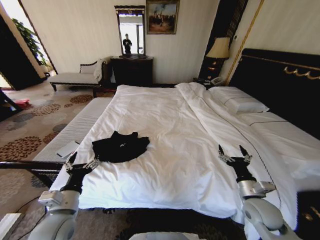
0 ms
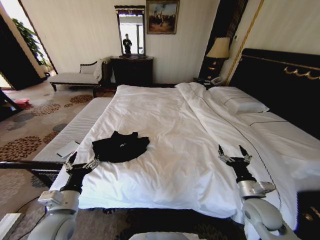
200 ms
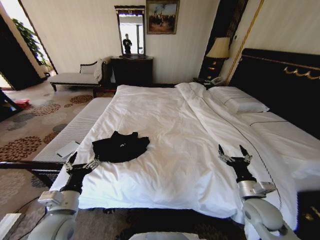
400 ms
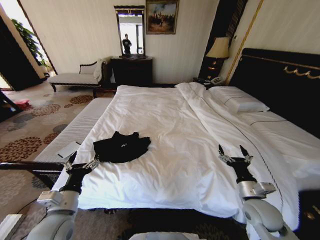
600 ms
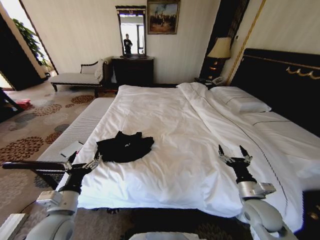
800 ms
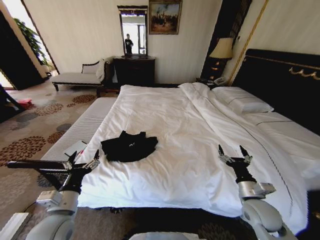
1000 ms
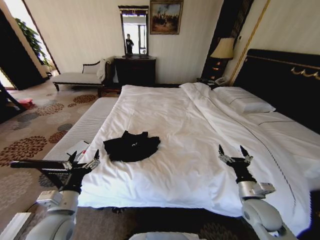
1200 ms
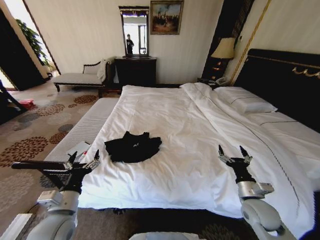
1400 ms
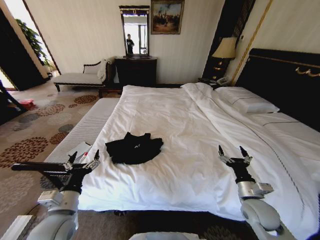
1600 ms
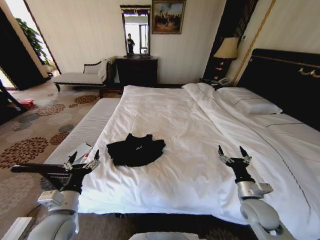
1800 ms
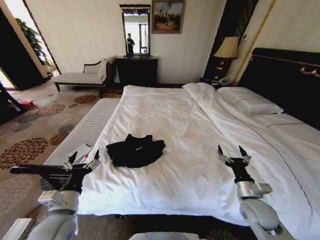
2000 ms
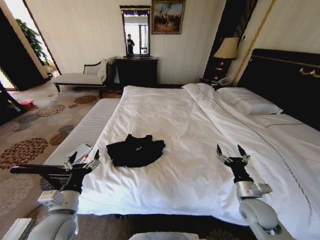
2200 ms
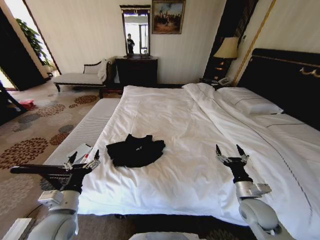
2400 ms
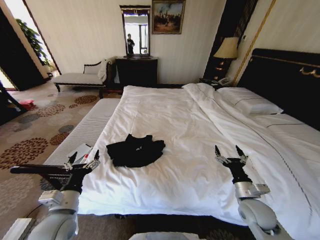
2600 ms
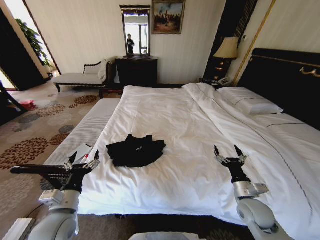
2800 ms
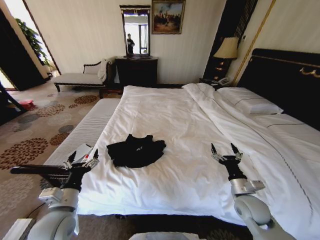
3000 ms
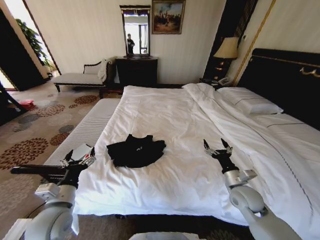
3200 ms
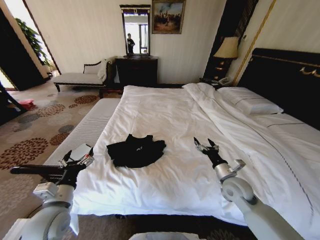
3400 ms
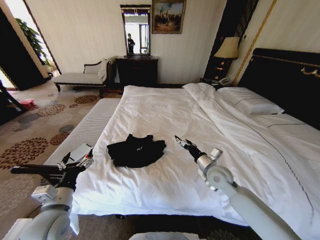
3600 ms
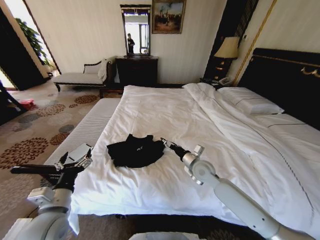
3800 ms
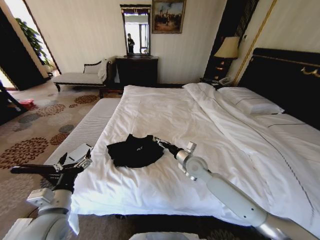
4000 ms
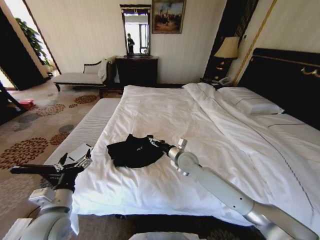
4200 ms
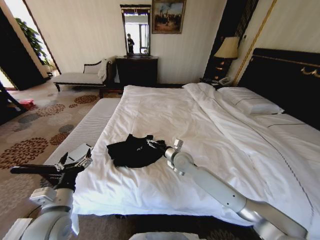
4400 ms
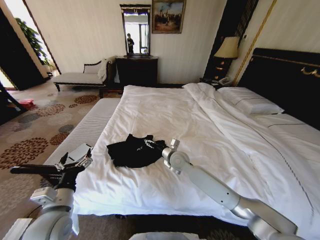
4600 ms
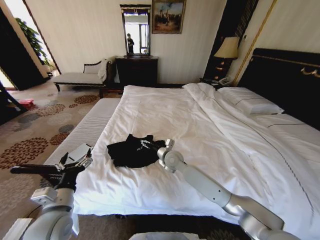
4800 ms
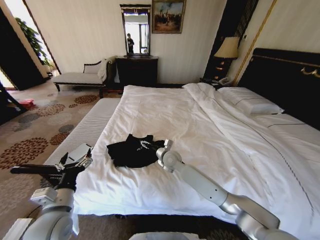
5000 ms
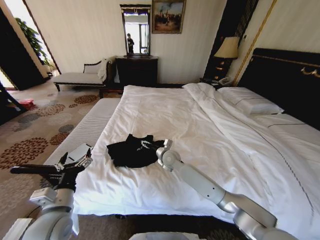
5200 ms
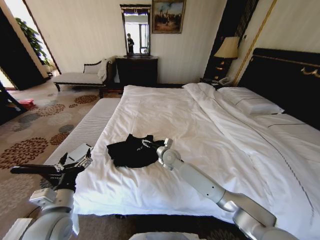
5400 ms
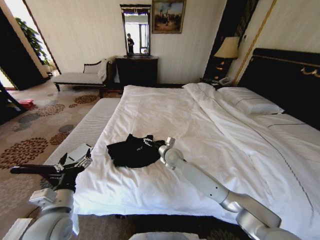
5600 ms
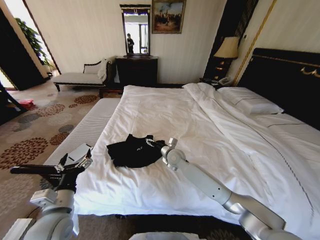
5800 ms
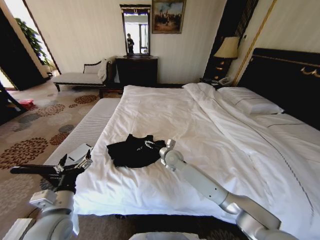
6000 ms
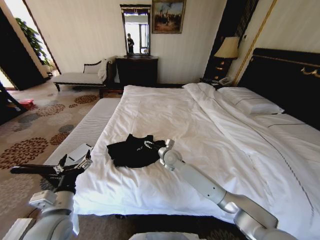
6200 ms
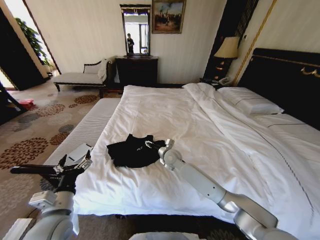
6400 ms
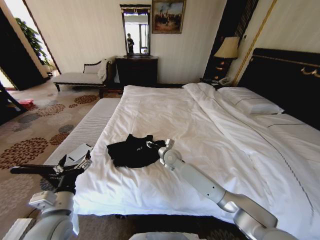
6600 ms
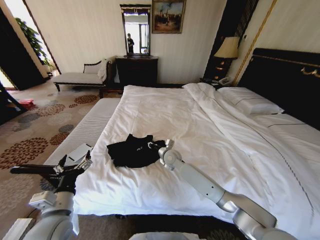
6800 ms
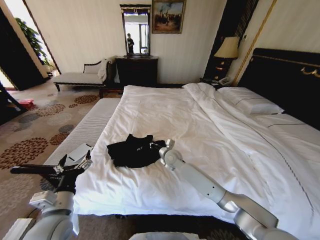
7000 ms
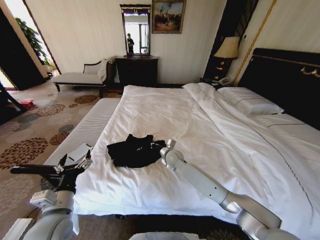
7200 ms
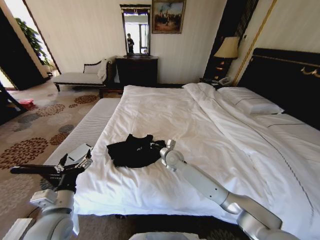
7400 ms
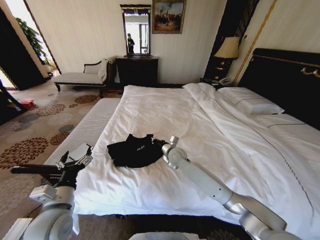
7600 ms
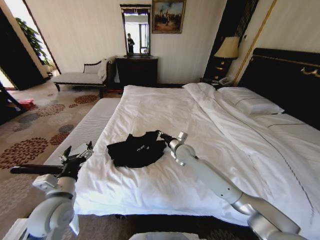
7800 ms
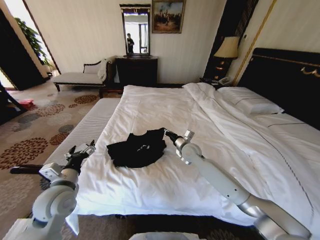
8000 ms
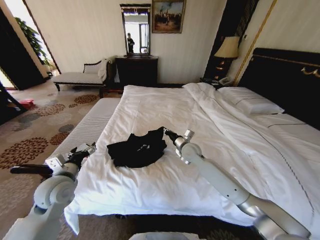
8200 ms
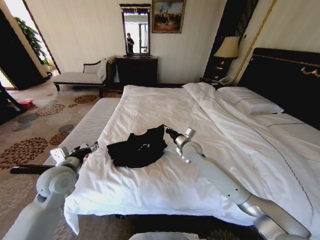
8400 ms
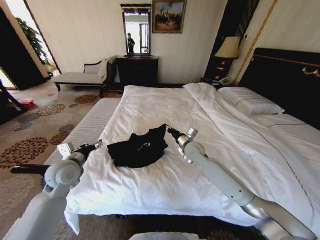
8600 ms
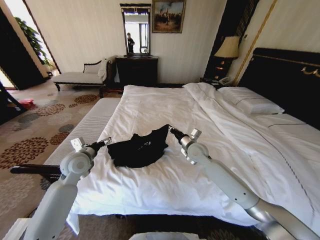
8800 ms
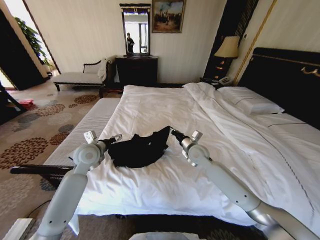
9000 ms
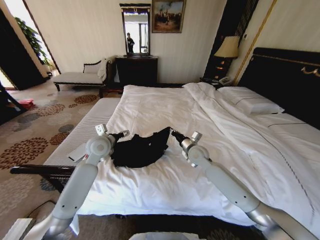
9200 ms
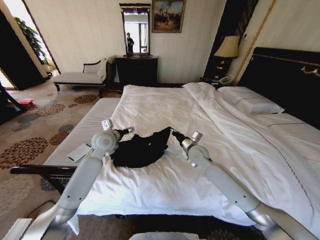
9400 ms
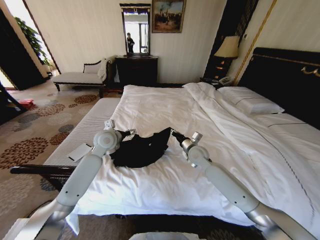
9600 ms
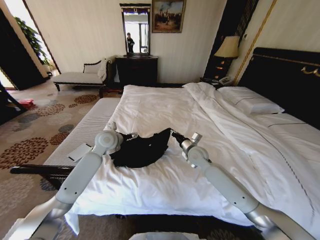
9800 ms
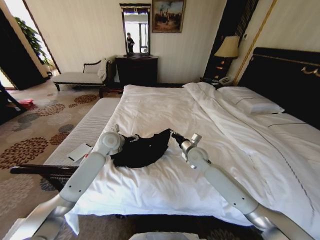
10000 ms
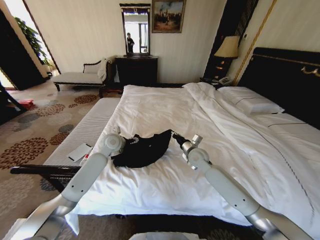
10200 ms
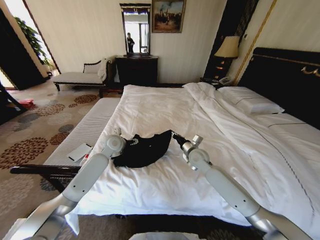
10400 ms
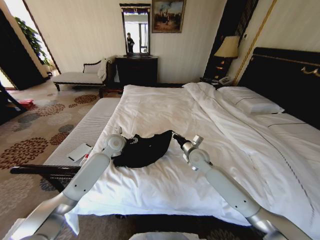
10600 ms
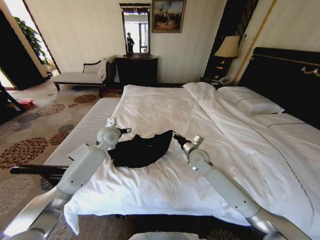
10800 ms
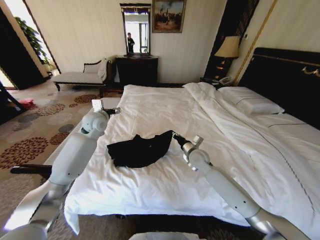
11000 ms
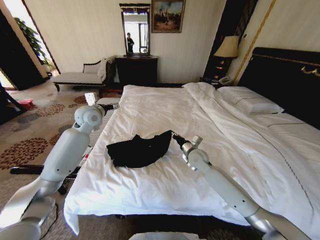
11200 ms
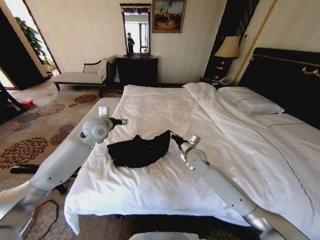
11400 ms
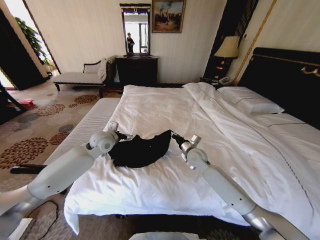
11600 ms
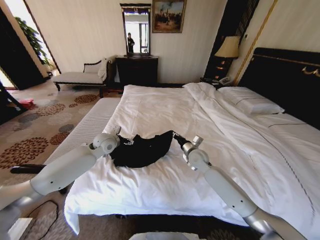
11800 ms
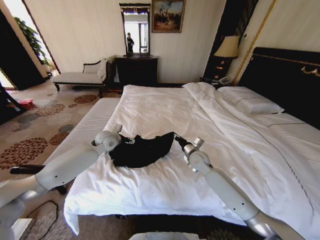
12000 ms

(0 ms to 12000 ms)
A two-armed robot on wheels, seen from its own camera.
Task of the whole recording: Fold the clothes on the bed.
1600 ms - 3000 ms: The grippers make only small movements.
3000 ms - 4400 ms: The right gripper goes about 30 cm to the left and forward.
4400 ms - 6000 ms: The right gripper shifts by roughly 5 cm.
6000 ms - 7600 ms: The right gripper closes up.
7600 ms - 9000 ms: The left gripper heads forward, covering about 20 cm, while the right gripper is displaced to the right by some 10 cm.
9000 ms - 10400 ms: The left gripper goes roughly 10 cm forward and to the right.
10400 ms - 12000 ms: The left gripper reaches about 15 cm upward, then returns.

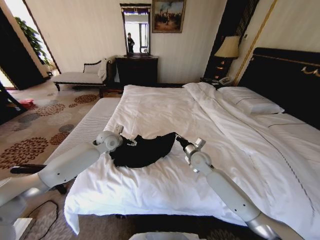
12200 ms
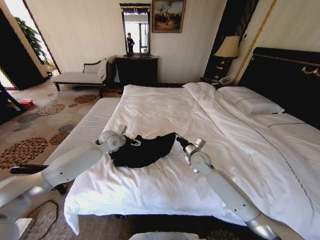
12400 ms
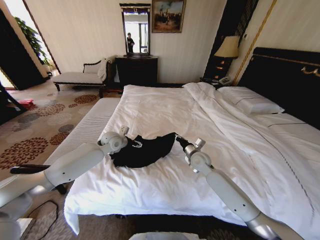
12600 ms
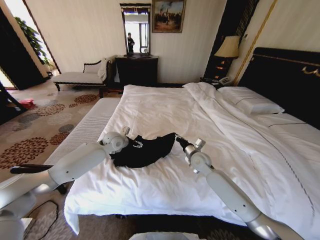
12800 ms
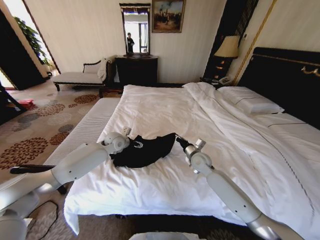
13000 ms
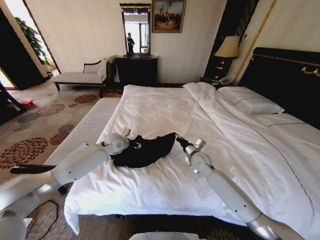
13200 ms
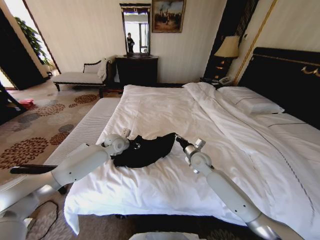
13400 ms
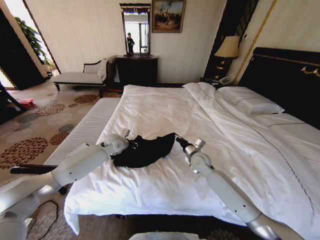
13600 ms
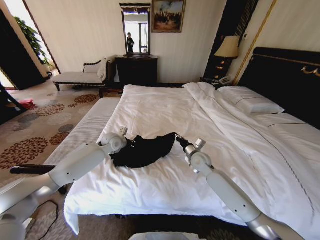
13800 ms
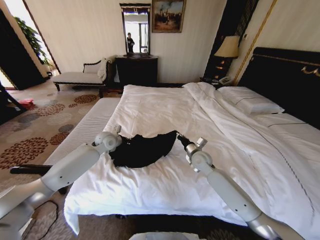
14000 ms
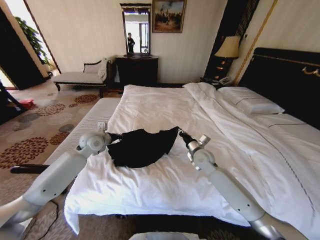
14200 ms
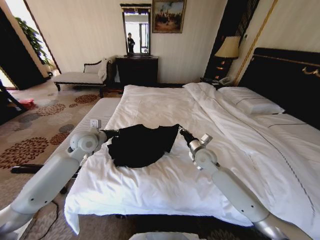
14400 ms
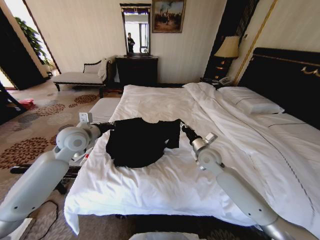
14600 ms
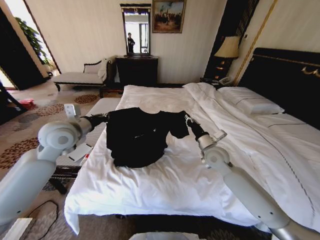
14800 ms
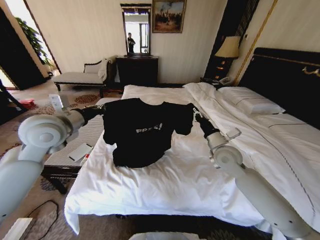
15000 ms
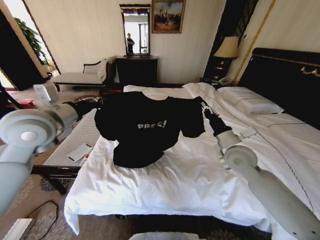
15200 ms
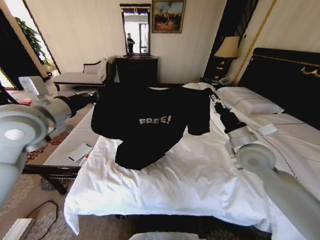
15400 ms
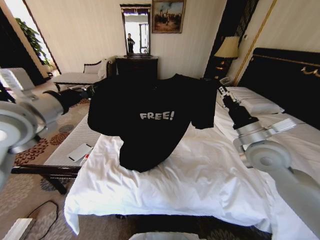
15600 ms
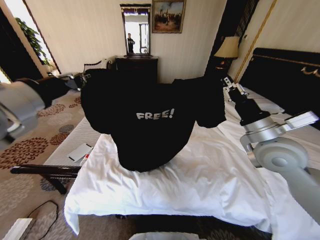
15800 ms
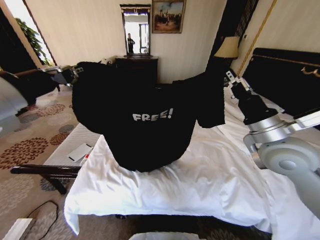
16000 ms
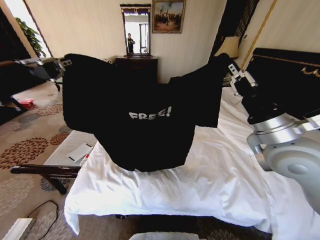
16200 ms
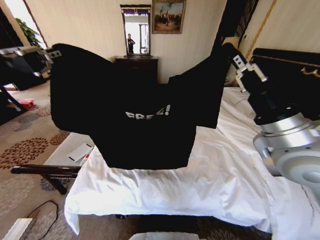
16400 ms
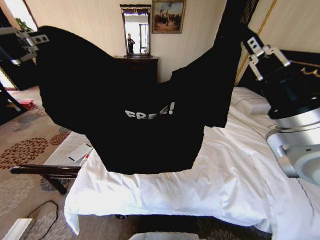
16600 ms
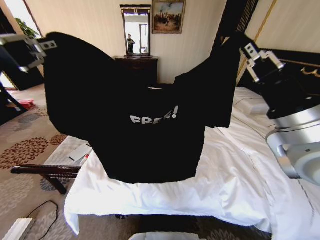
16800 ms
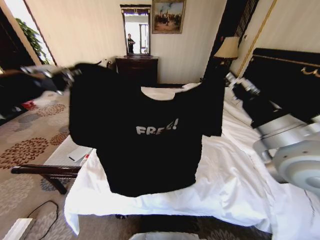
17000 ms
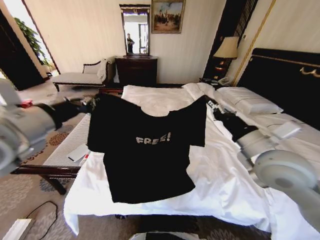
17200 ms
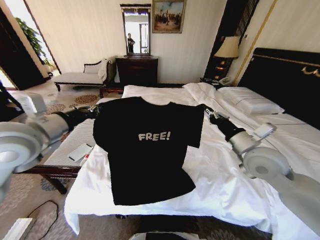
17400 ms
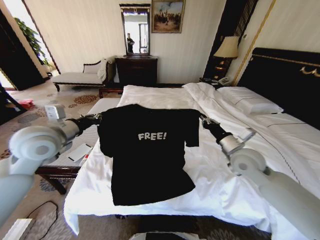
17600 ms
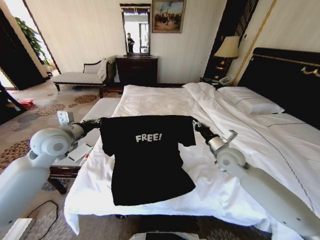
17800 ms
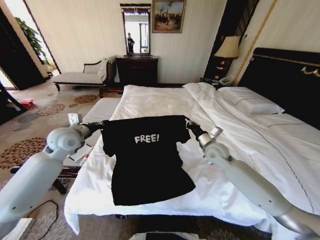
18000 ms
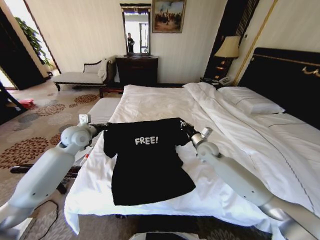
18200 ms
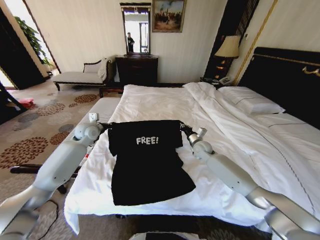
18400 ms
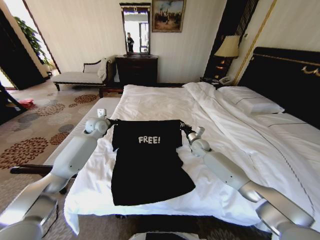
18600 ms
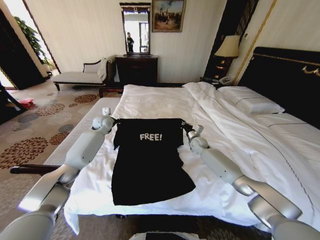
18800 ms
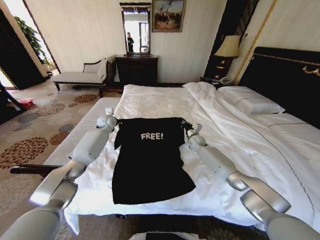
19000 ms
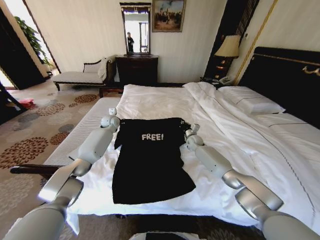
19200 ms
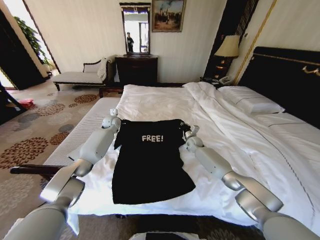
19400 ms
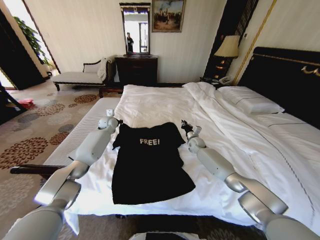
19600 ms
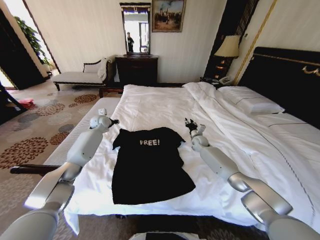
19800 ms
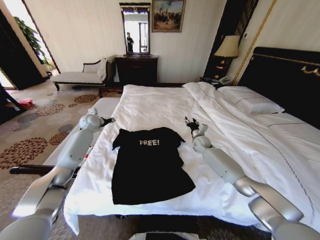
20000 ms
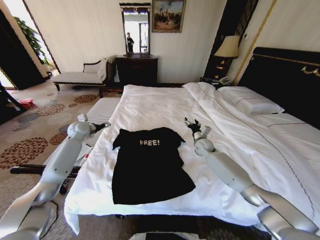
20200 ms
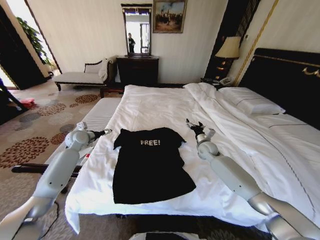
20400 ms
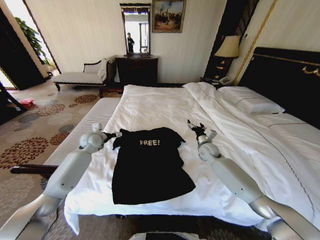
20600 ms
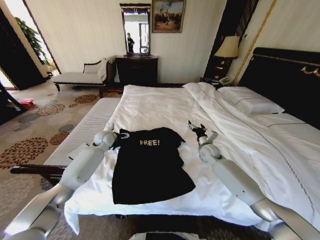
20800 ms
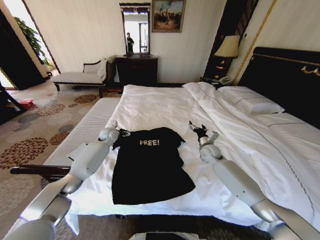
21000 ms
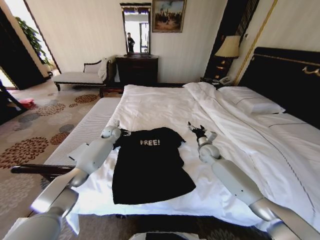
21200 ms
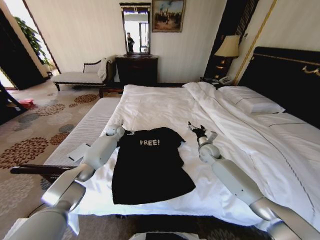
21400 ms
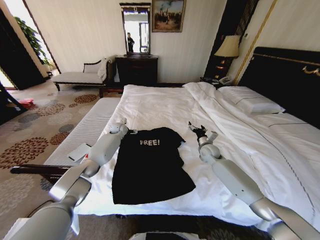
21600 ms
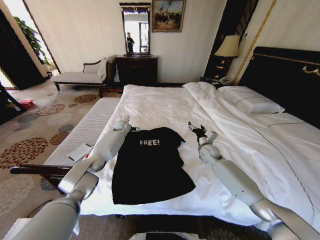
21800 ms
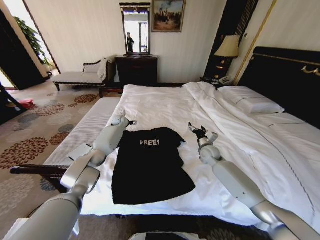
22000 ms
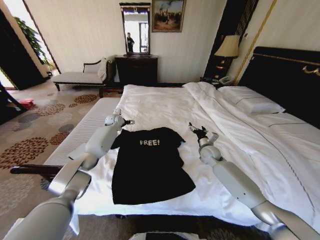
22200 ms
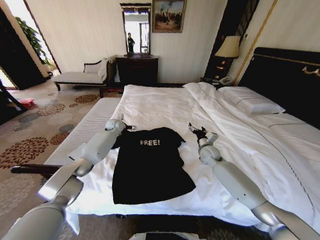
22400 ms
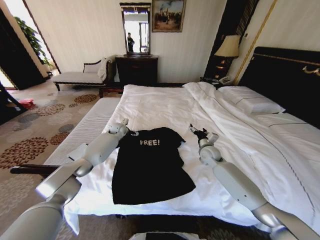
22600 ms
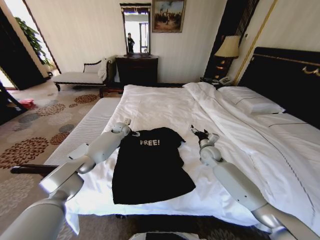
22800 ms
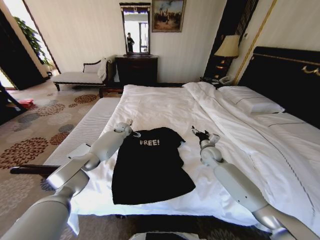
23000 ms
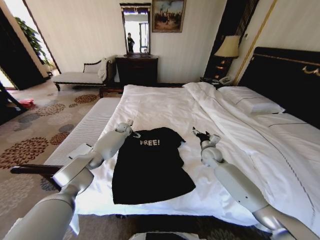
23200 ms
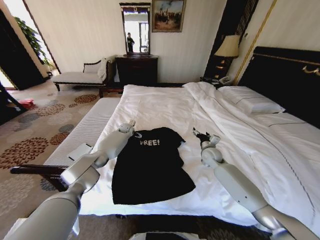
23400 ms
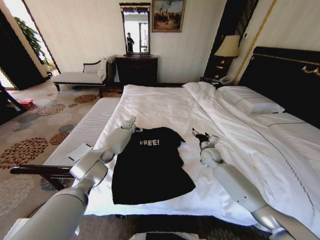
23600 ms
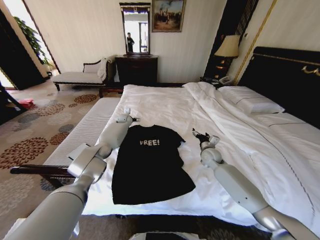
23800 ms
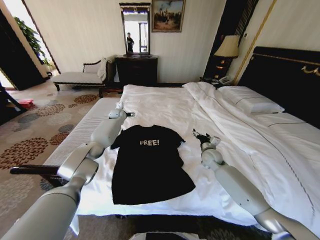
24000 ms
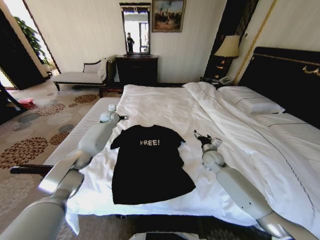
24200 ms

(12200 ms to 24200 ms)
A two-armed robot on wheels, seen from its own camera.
Task of the whole recording: Fold the clothes on the bed.
12200 ms - 13800 ms: The left gripper closes up.
13800 ms - 15200 ms: The right gripper heads upward, backward and to the right, covering roughly 15 cm. Meanwhile the left gripper moves upward, backward and to the left, roughly 30 cm.
15200 ms - 16600 ms: The right gripper moves upward and backward, roughly 20 cm. Meanwhile the left gripper is displaced backward and upward by some 20 cm.
16600 ms - 18200 ms: The left gripper moves forward and downward, some 40 cm. Meanwhile the right gripper shifts approximately 35 cm downward and forward.
18200 ms - 19800 ms: The right gripper travels forward and downward by about 15 cm, and opens its fingers, while the left gripper shifts some 15 cm forward, and opens.
19800 ms - 21200 ms: The left gripper heads downward and to the right, covering roughly 10 cm, and opens. The right gripper goes some 10 cm backward, and opens its fingers.
21200 ms - 22600 ms: The left gripper travels forward and back again, approximately 10 cm each way.
22600 ms - 24200 ms: The left gripper heads upward, covering roughly 5 cm.
